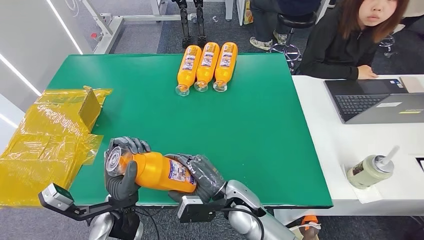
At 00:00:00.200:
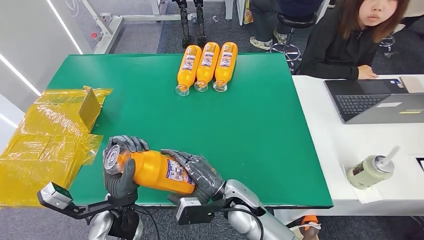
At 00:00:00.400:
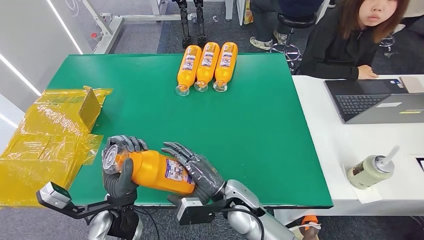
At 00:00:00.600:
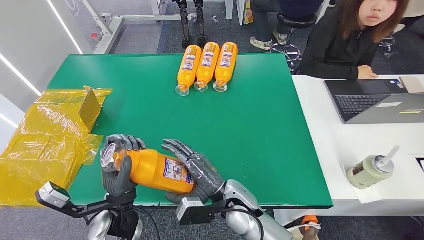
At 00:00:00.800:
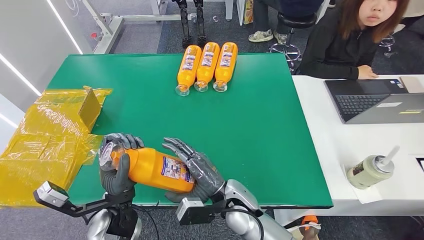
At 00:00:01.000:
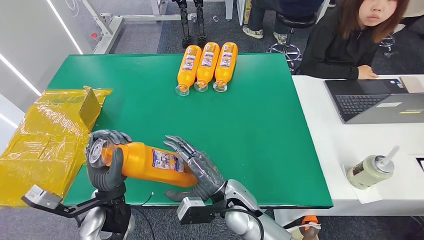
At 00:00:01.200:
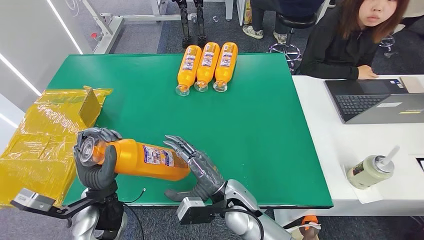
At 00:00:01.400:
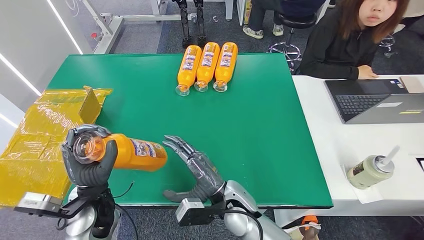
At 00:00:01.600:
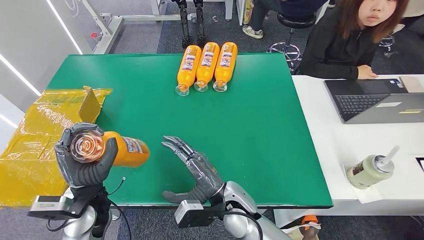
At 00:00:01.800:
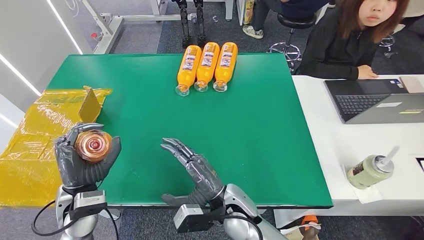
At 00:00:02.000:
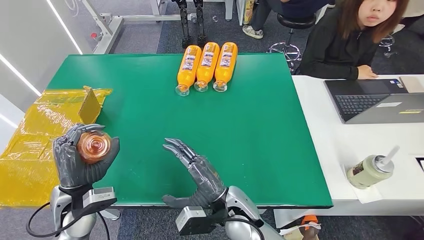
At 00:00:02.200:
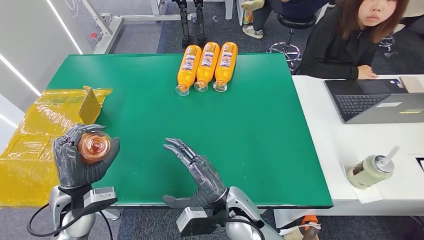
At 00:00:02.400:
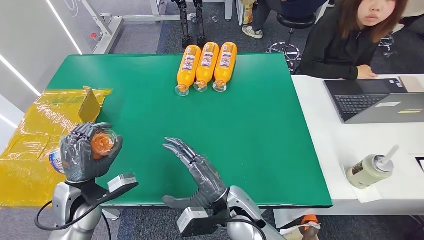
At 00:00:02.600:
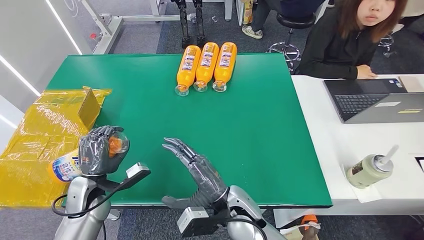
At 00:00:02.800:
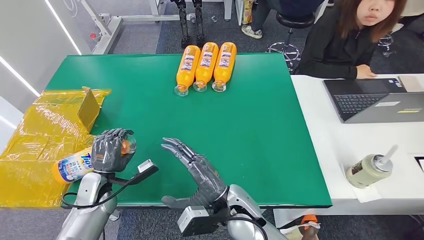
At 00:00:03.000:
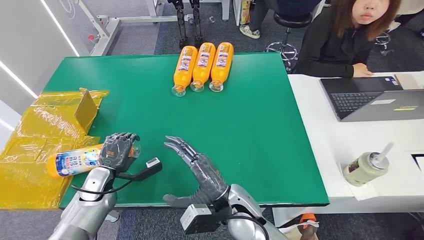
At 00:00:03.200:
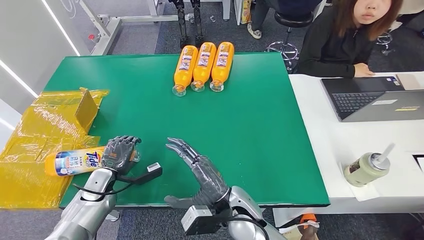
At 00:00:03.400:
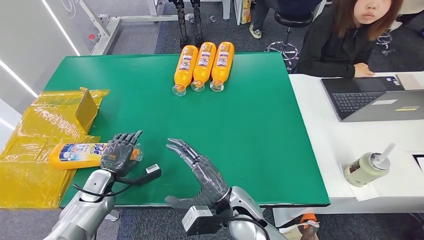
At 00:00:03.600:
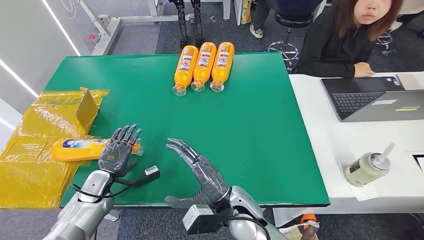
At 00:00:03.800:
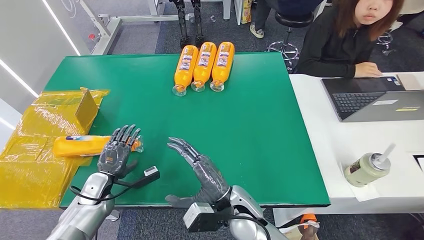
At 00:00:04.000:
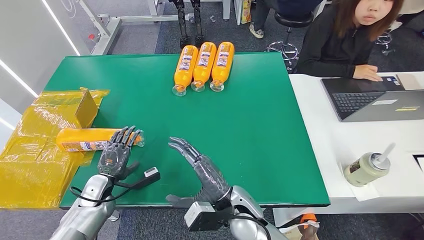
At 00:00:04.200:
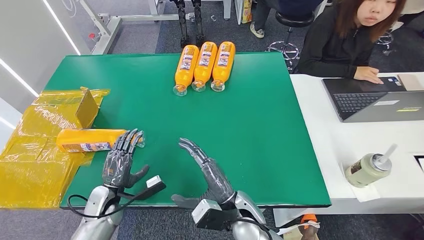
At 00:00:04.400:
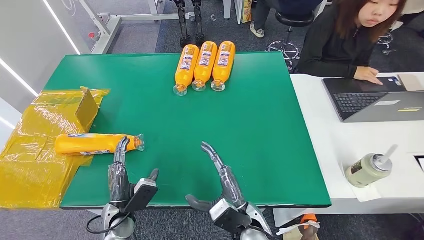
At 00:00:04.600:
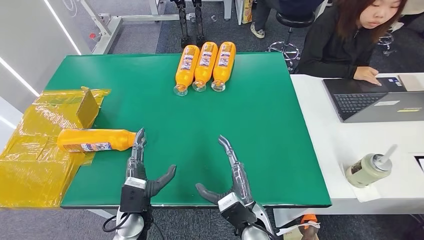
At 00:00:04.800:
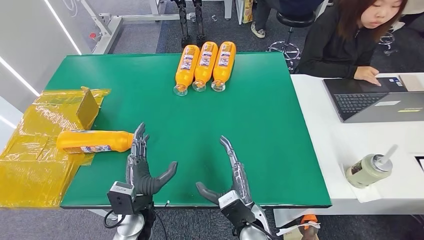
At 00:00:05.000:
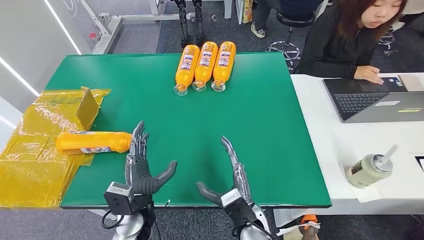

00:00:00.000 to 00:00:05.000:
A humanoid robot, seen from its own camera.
Step, 00:00:00.000 to 00:00:04.800: Turn the bottle to the front side.
00:00:00.000 to 00:00:01.600: The left hand is displaced to the left by roughly 5 cm.

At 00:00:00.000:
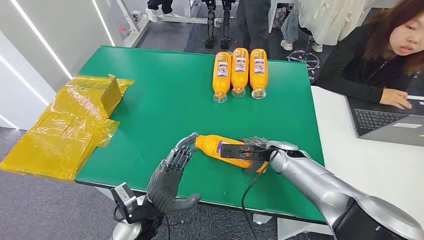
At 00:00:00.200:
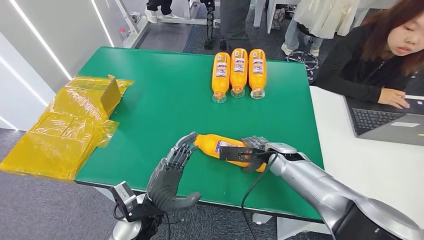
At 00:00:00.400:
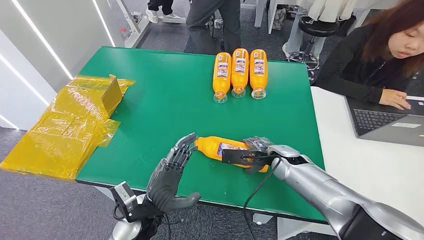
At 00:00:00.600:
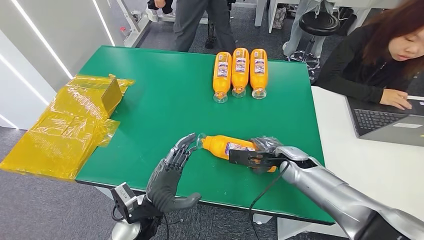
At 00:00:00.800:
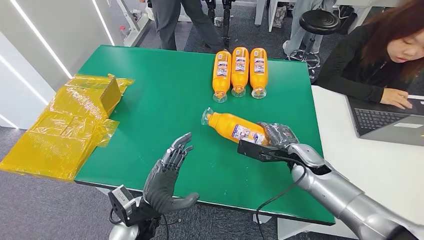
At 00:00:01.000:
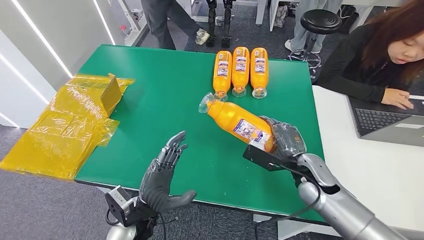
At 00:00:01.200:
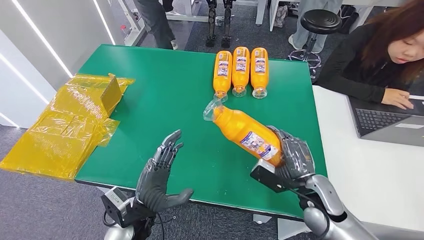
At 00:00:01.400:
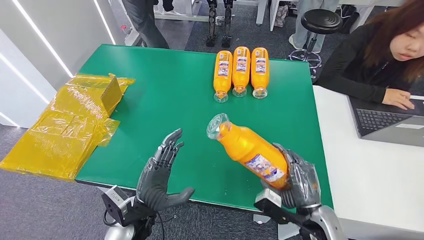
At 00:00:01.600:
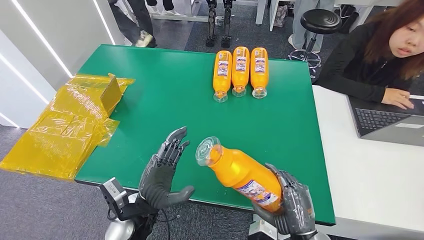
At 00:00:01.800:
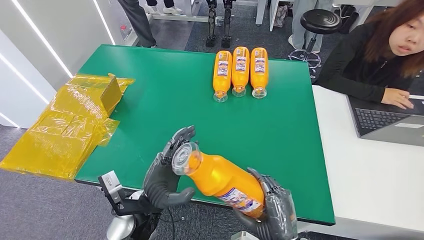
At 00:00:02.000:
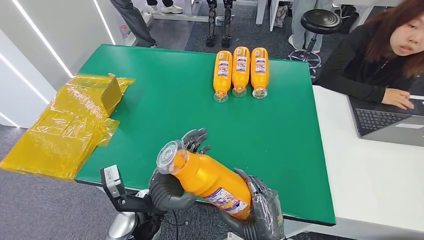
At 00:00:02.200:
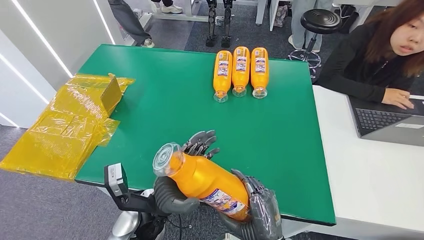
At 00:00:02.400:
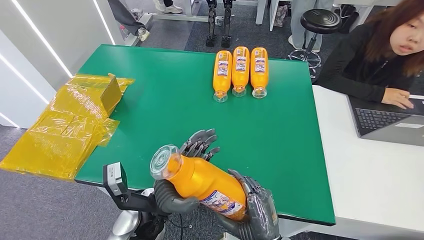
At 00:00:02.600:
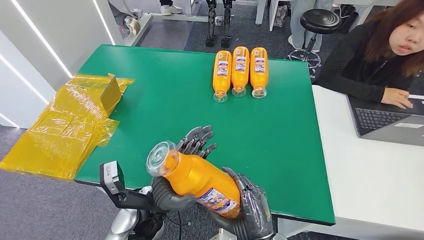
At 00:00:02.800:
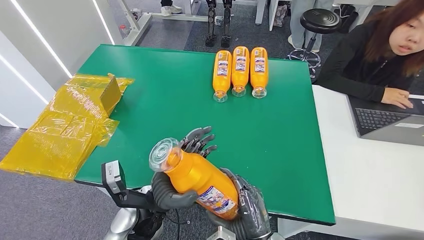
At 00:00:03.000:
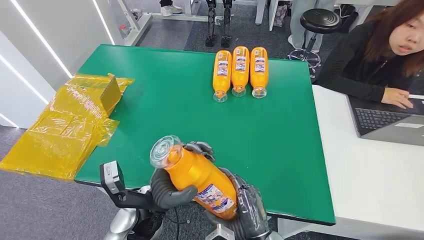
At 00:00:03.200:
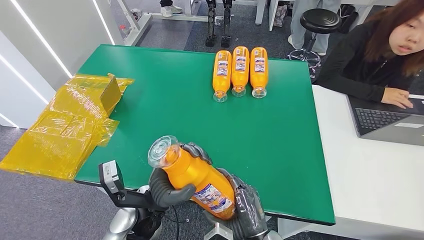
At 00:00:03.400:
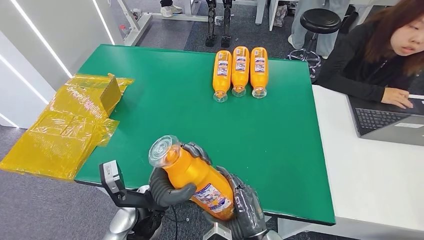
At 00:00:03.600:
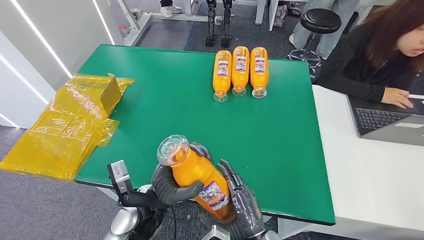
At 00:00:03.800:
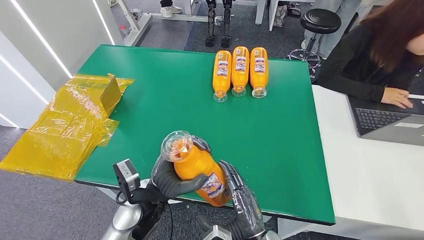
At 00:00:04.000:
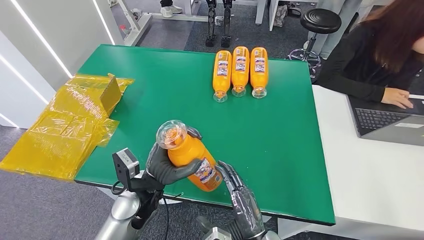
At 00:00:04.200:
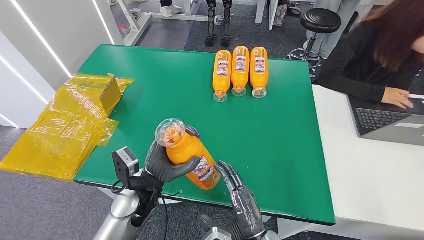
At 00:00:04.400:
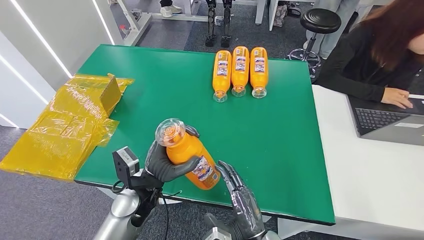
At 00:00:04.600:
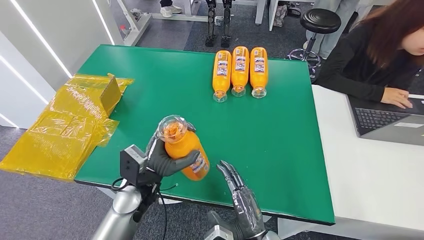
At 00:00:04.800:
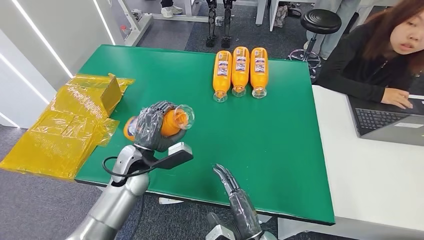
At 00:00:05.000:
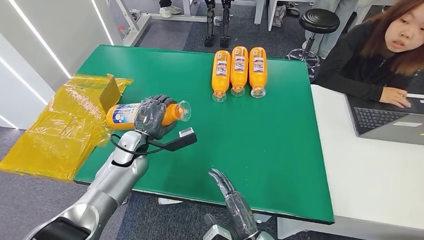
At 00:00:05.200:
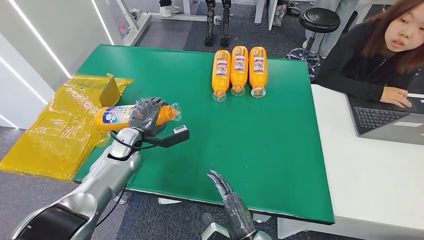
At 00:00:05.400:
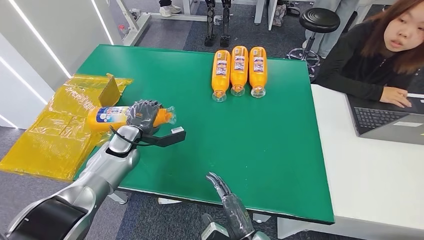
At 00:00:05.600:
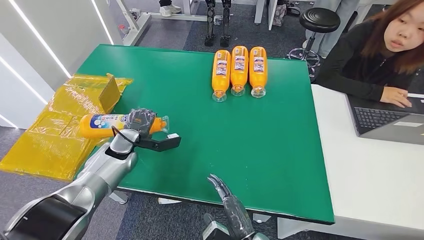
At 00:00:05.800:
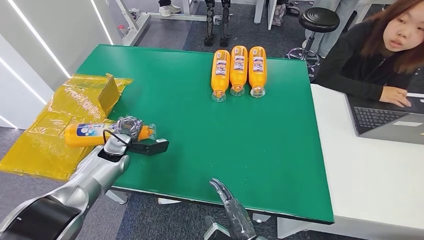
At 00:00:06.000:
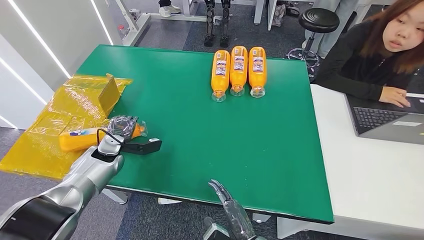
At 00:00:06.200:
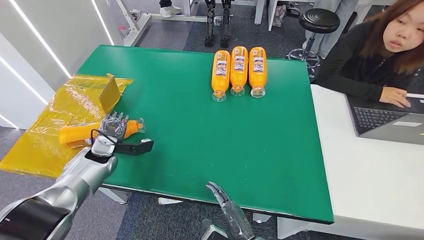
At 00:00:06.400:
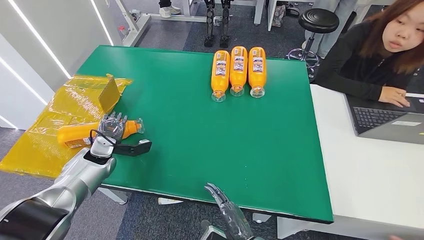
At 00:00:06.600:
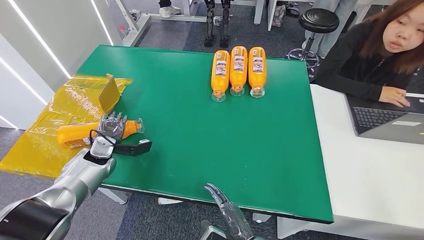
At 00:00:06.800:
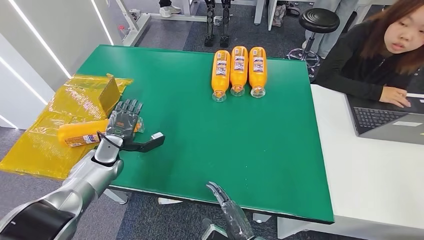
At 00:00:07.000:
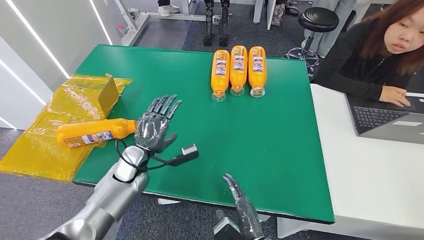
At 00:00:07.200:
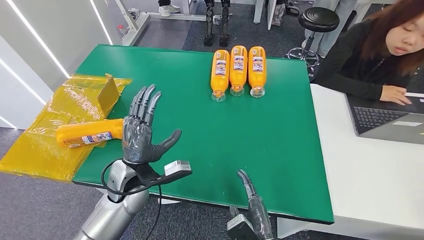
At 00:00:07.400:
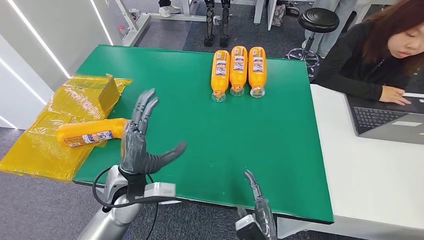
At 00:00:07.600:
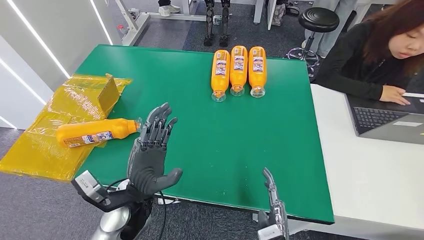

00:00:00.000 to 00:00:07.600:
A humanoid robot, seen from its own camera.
Step, 00:00:00.000 to 00:00:02.400: Pick up the bottle from the table.
Step, 00:00:02.600 to 00:00:07.600: Turn the bottle to the front side.
00:00:01.600 to 00:00:03.000: The right hand moves to the left, approximately 10 cm.
00:00:03.000 to 00:00:04.600: The left hand goes roughly 5 cm forward.
00:00:06.000 to 00:00:07.600: The right hand ends up about 5 cm from where it was, while the left hand heads to the right and backward, covering roughly 25 cm.
